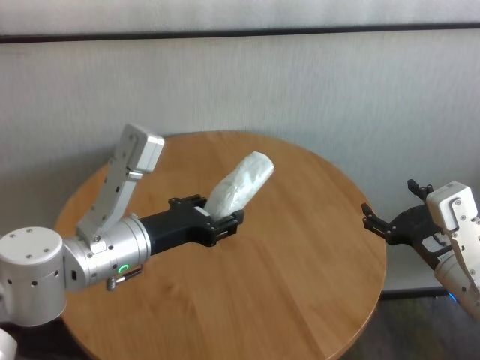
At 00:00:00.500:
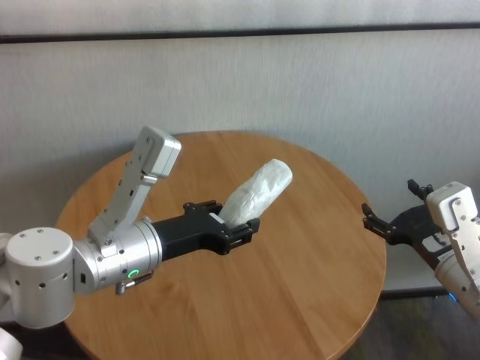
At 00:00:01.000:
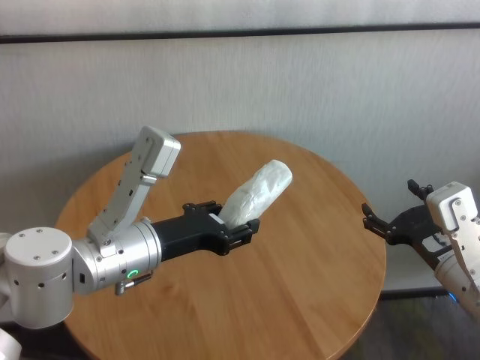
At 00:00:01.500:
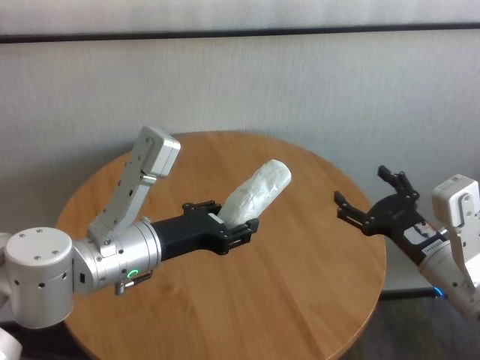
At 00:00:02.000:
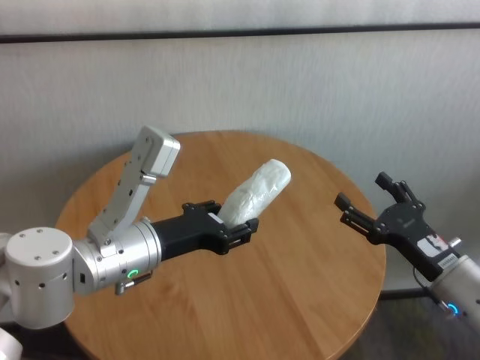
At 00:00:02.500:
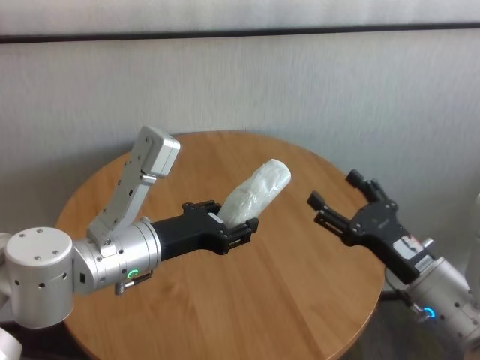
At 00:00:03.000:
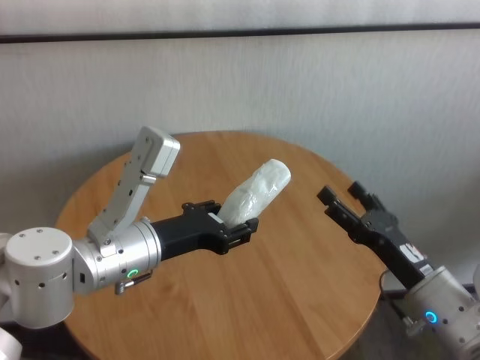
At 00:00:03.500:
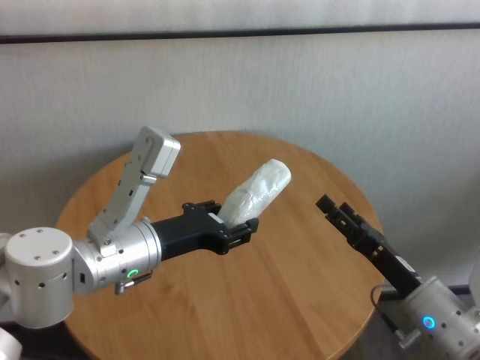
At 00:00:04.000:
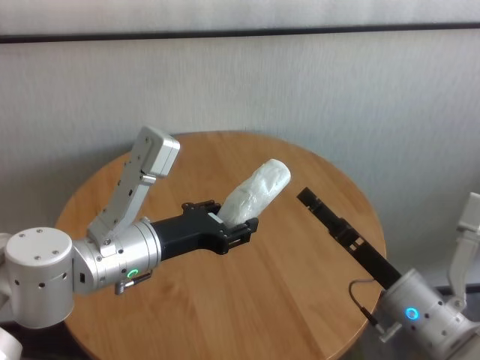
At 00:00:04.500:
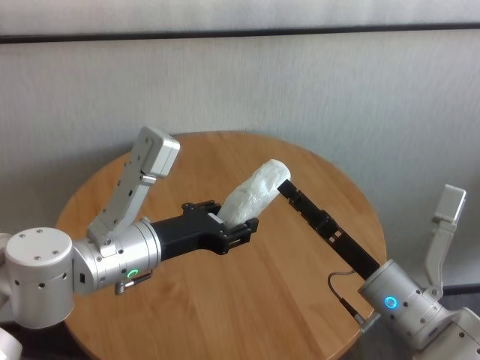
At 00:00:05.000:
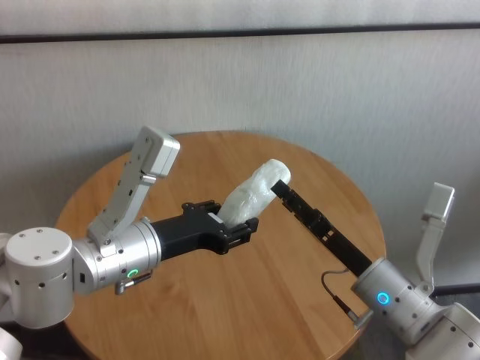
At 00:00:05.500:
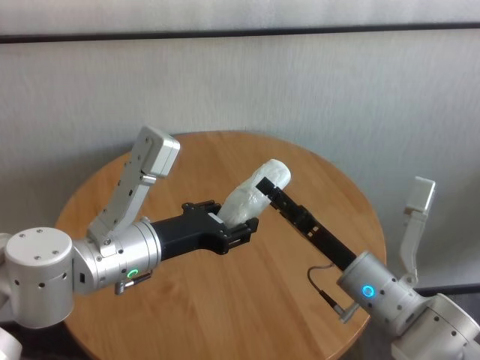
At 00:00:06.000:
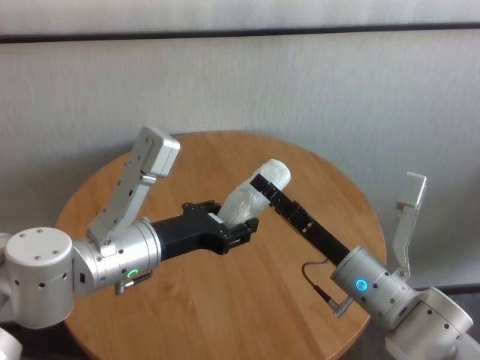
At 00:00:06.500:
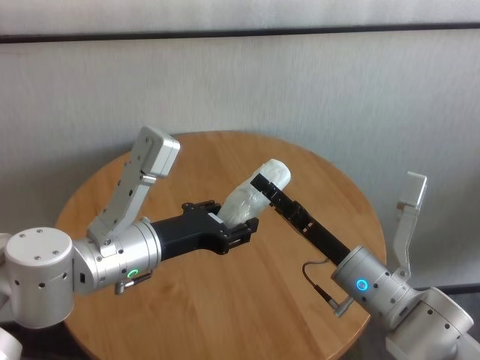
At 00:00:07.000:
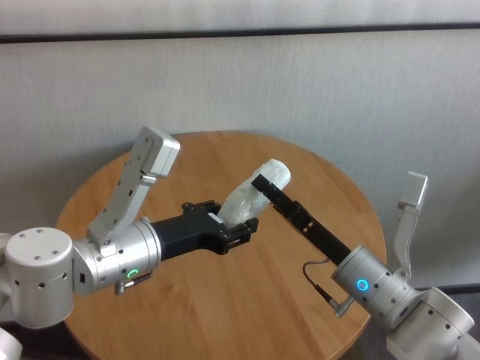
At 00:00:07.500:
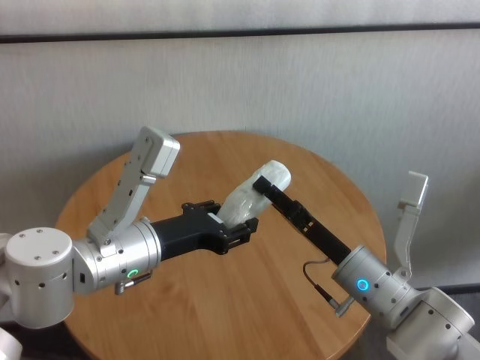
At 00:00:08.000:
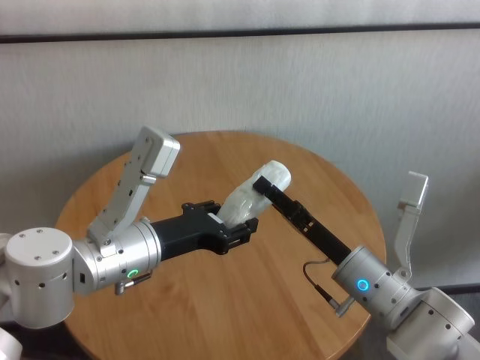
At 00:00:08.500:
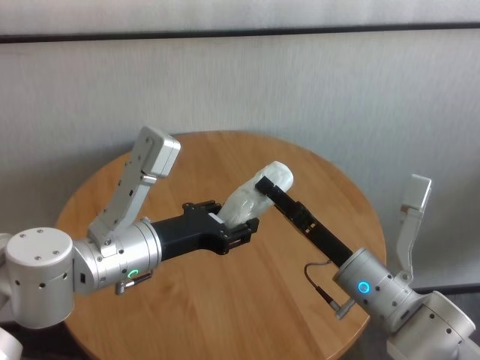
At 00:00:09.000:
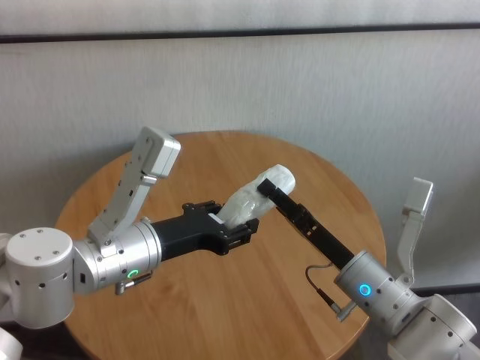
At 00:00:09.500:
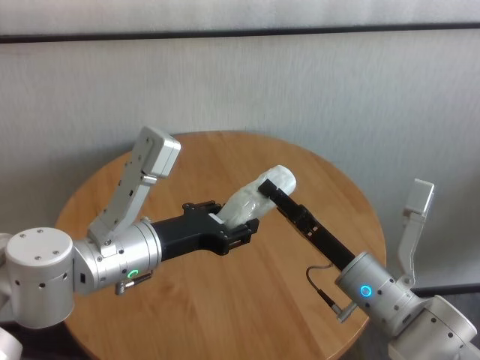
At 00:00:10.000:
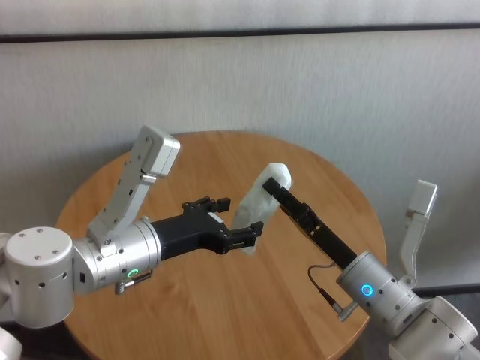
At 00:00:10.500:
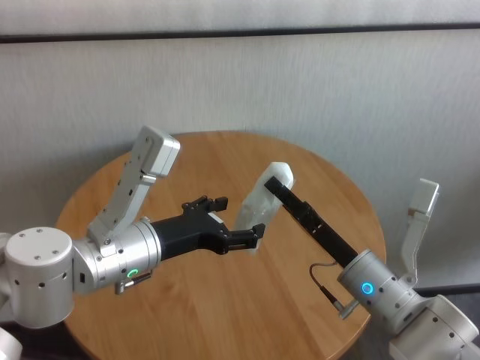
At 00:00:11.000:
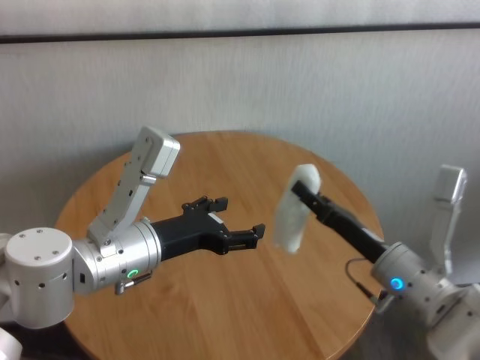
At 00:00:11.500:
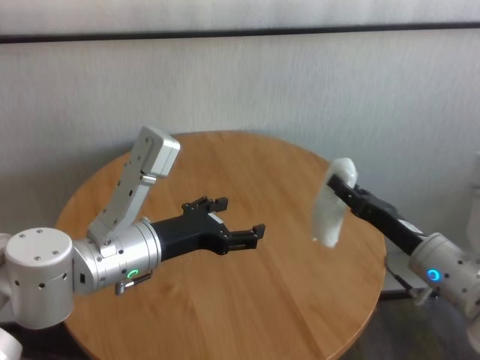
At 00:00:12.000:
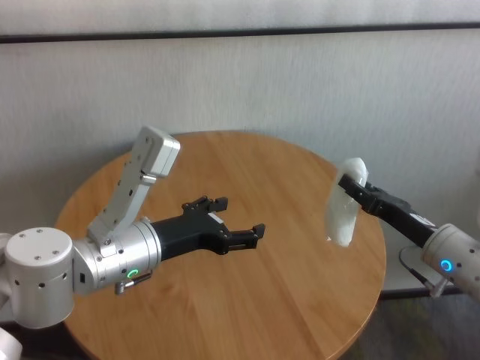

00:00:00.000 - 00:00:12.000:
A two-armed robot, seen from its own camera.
Task of the whole recording: One hand took the sandbag from the other hand and placed it on the table.
Step, 00:00:00.000 - 00:00:10.000: Pass the paper ball to the right gripper.

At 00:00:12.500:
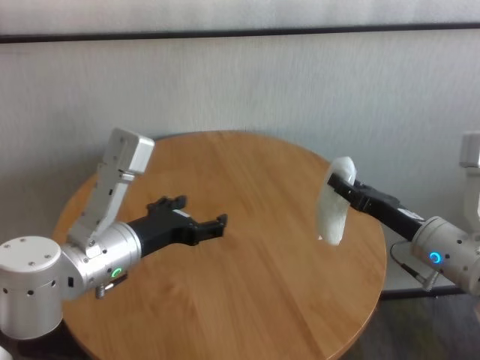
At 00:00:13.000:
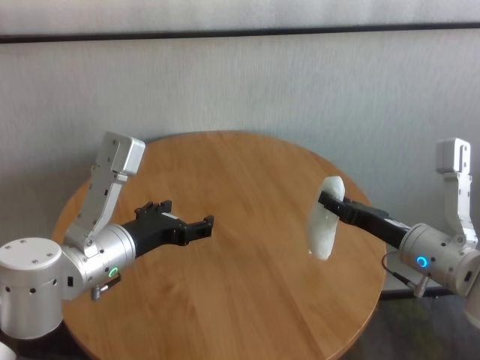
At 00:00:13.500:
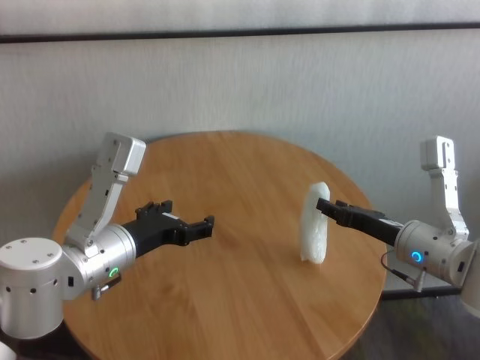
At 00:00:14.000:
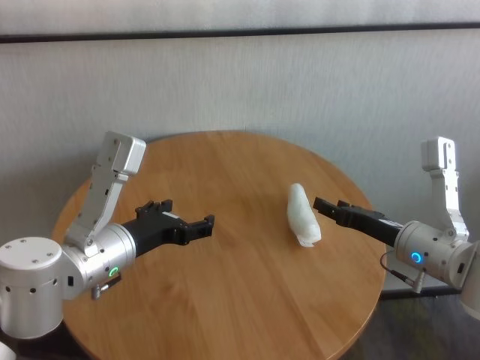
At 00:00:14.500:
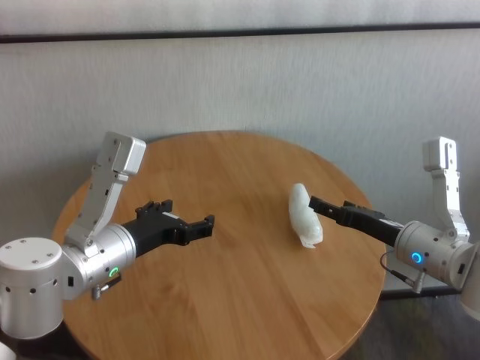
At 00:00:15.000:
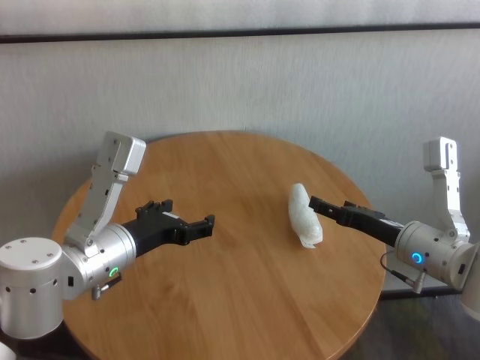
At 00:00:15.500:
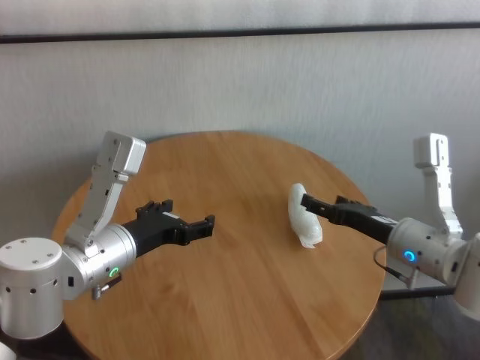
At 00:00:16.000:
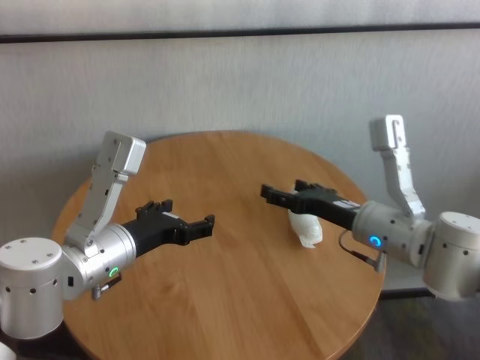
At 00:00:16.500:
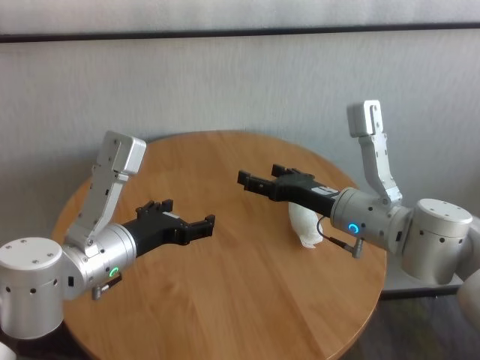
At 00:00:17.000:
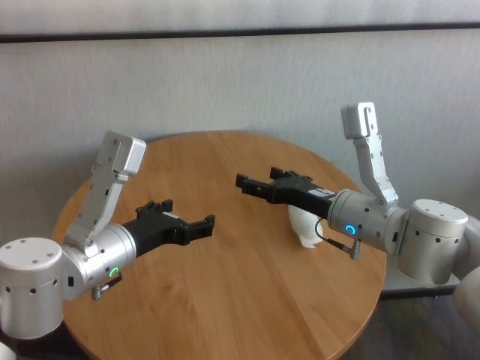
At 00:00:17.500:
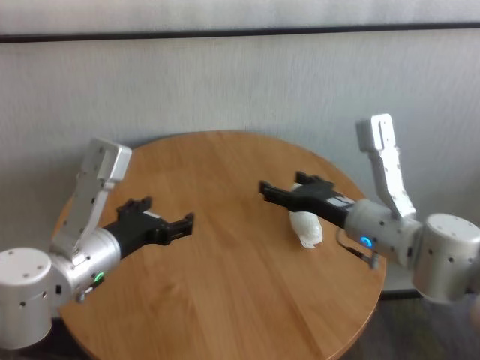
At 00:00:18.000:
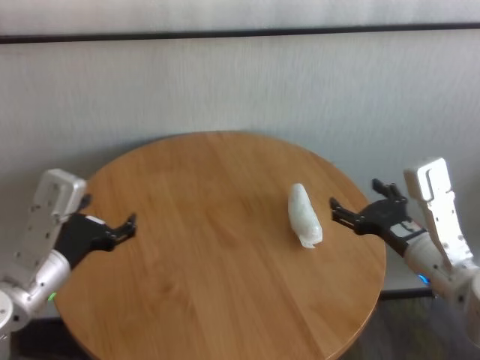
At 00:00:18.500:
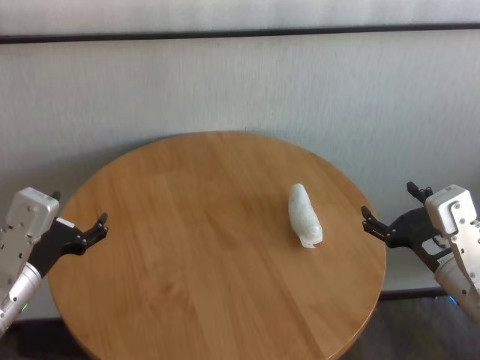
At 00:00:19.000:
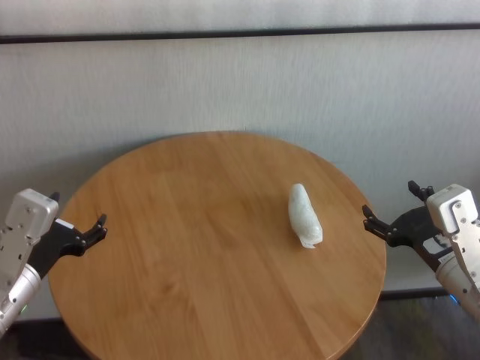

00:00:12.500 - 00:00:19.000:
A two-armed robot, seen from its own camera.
Task of the whole recording: One hand took the sandbag from the other hand and placed it on the table.
Step, 00:00:12.500 - 00:00:14.500: Place the paper ball on the table with right gripper.
